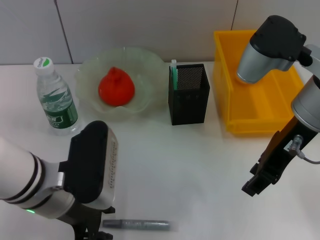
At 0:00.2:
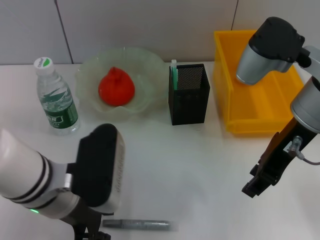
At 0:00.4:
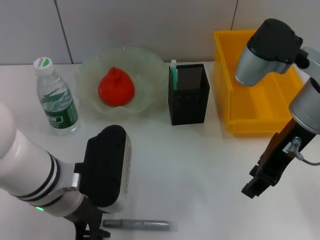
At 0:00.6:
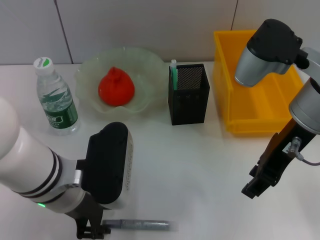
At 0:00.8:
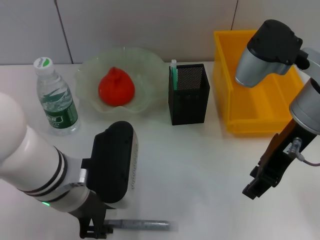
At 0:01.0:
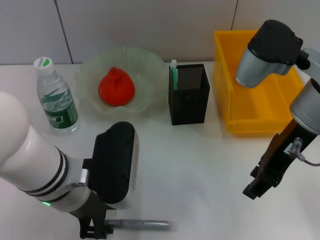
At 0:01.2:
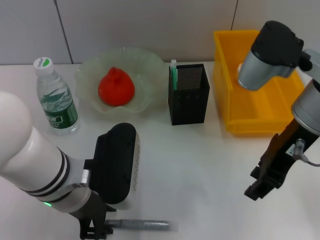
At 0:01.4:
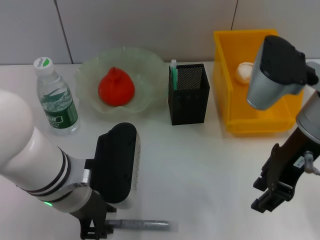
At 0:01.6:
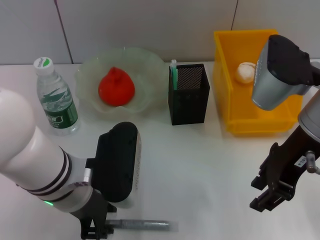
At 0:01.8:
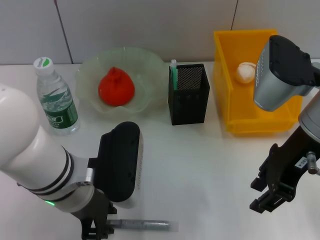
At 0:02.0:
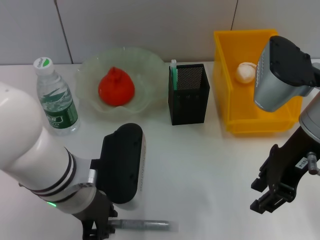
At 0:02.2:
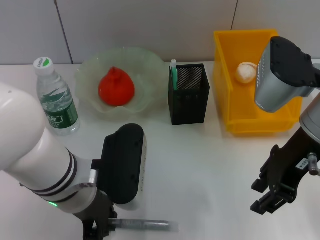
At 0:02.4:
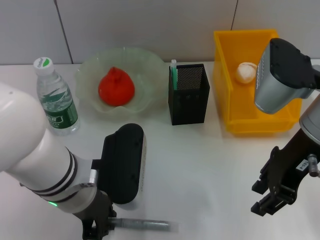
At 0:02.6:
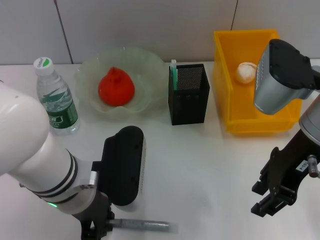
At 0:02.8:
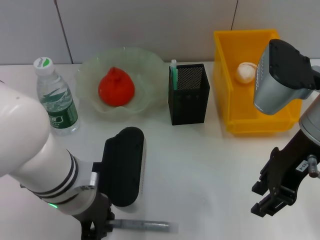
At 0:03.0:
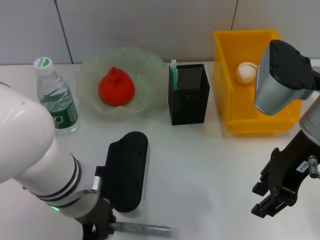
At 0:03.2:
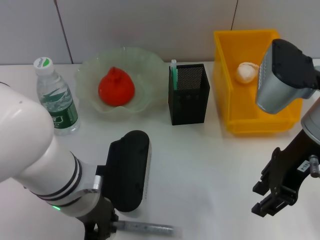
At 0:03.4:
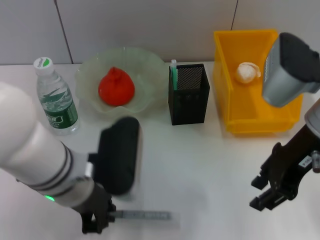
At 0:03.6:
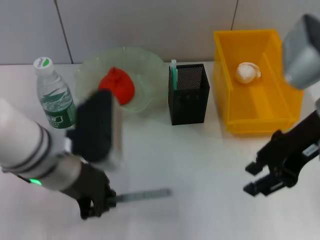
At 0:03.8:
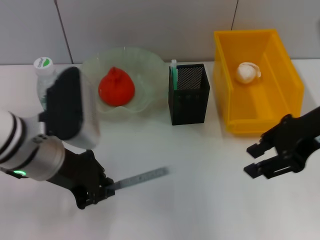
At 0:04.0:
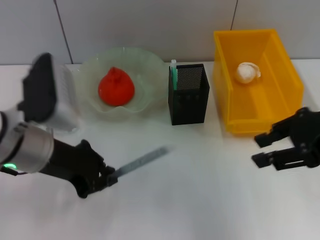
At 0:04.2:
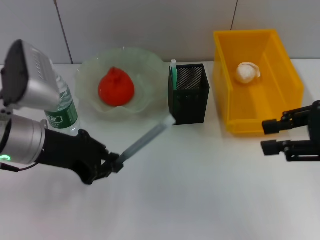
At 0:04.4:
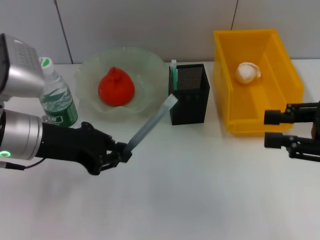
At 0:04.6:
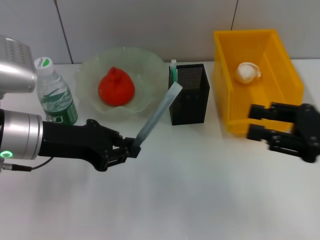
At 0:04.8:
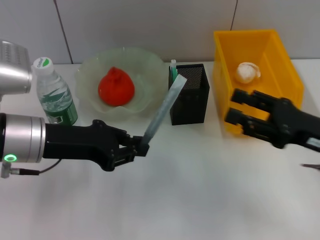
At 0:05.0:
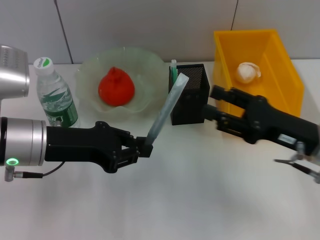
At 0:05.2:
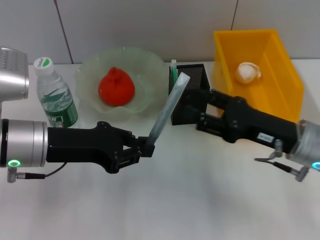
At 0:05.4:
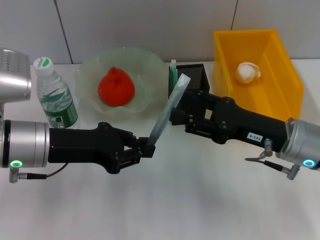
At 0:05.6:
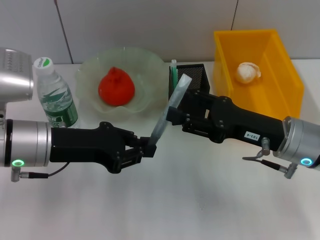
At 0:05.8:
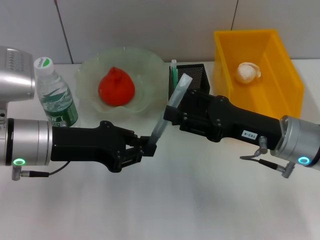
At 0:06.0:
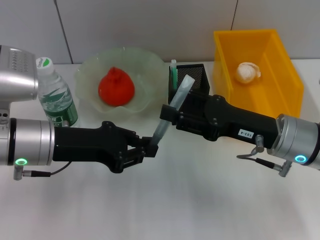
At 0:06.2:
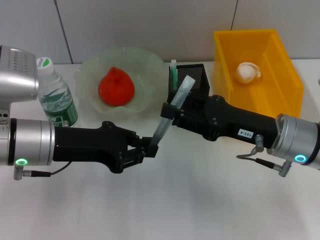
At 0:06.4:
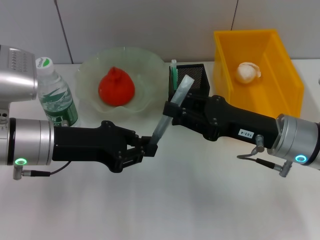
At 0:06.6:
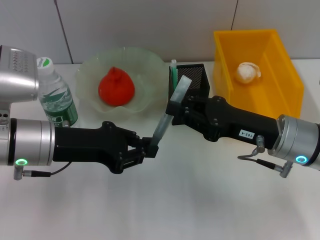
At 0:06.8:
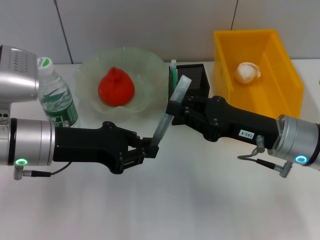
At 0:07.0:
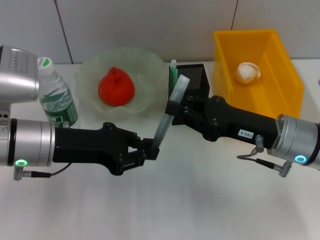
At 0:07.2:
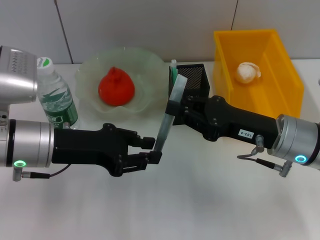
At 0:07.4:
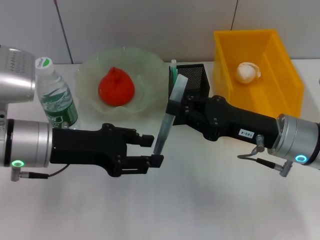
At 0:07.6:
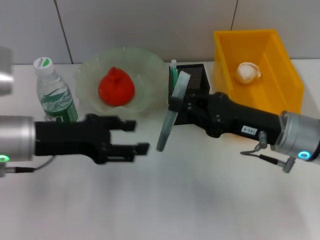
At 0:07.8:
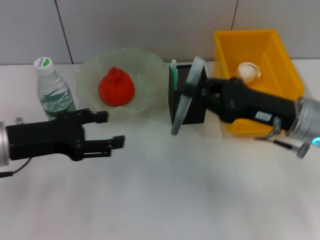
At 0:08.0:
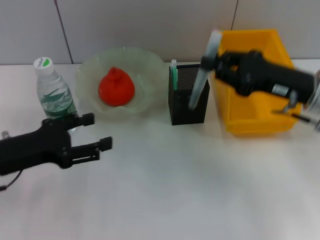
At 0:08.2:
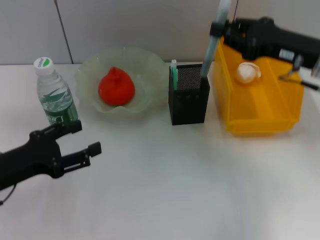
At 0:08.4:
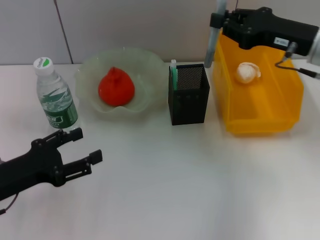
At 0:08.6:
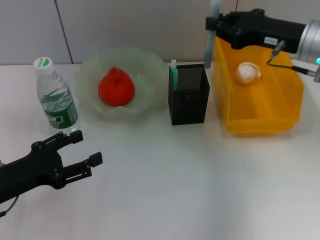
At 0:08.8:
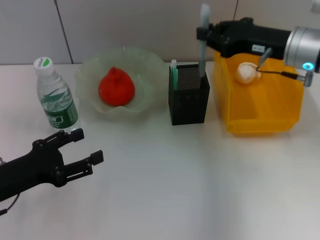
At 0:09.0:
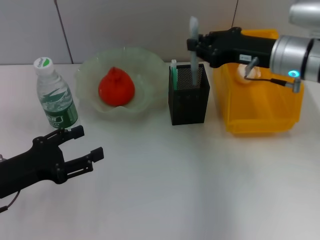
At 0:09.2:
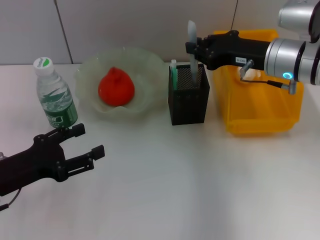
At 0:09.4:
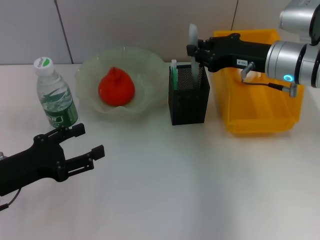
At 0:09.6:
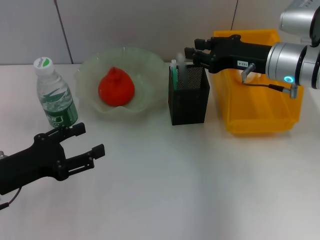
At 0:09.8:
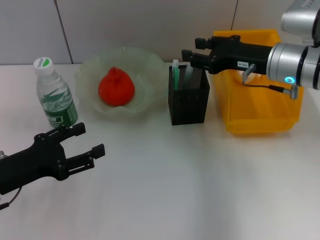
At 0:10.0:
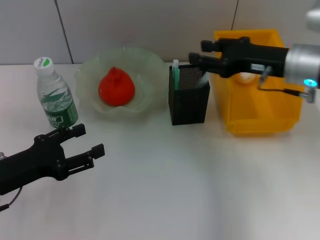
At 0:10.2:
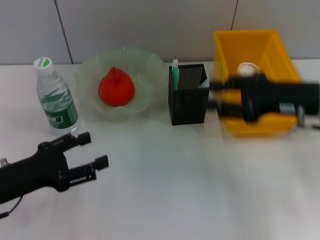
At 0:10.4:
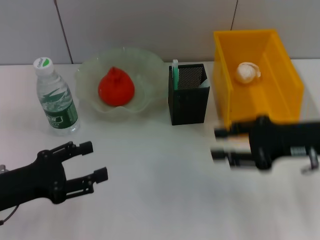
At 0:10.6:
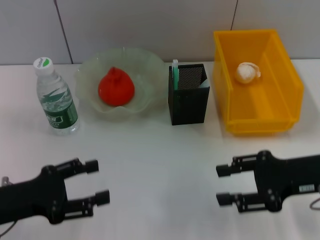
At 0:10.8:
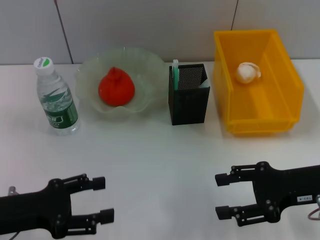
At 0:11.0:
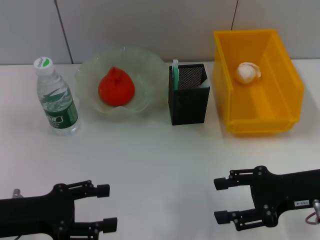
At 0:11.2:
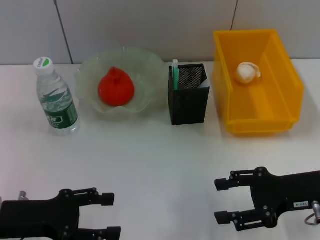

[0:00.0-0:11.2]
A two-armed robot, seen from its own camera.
Step, 0:00.0 to 0:02.8: Grab the gray glue with the left hand.
Step, 0:03.0 to 0:07.2: Pass the gray glue from the left hand to the right hand.
Step, 0:07.4 to 0:09.6: Place the gray glue into the pen holder with the right hand.
0:01.6 to 0:03.2: Both grippers stay about where they are.
0:03.2 to 0:04.8: The left gripper goes about 10 cm to the left. The right gripper goes about 15 cm downward and to the right.
0:04.8 to 0:06.4: The right gripper travels to the left by approximately 10 cm.
0:06.4 to 0:08.0: The right gripper changes place by some 5 cm, and closes up, while the left gripper moves to the left, about 5 cm, and opens.
0:08.0 to 0:09.6: The left gripper moves roughly 5 cm; the right gripper moves forward, roughly 5 cm.
0:09.6 to 0:11.2: The right gripper goes about 15 cm backward, to the right and downward, and opens.

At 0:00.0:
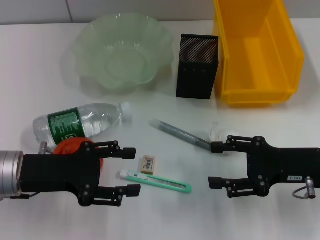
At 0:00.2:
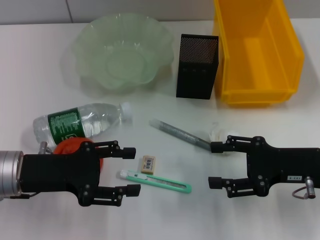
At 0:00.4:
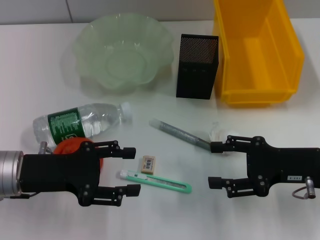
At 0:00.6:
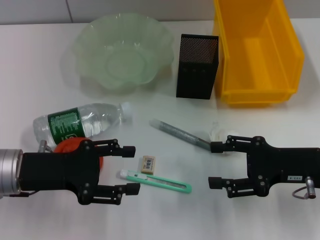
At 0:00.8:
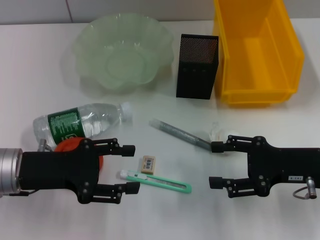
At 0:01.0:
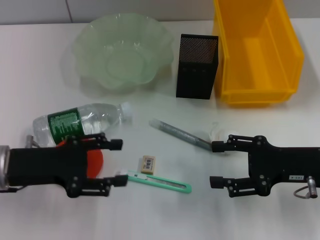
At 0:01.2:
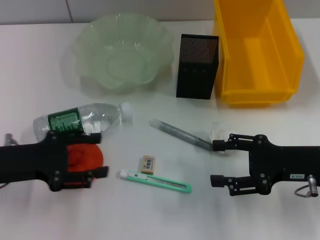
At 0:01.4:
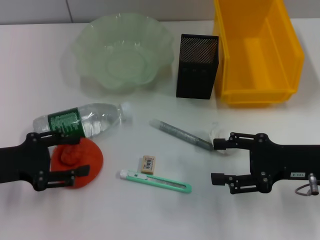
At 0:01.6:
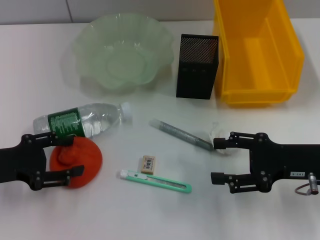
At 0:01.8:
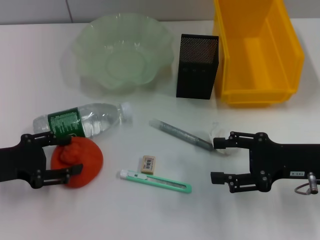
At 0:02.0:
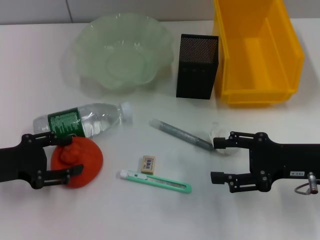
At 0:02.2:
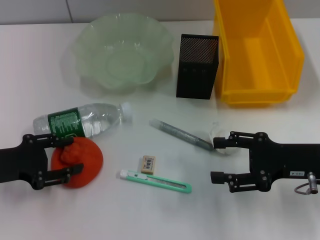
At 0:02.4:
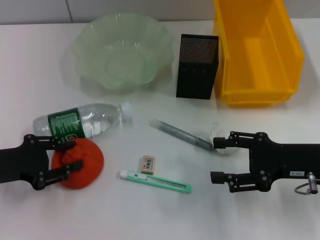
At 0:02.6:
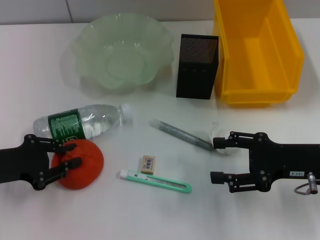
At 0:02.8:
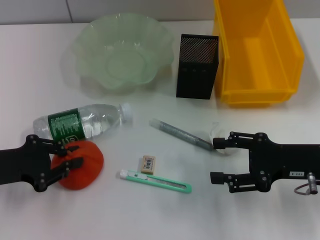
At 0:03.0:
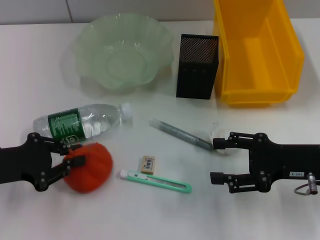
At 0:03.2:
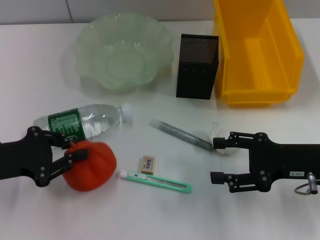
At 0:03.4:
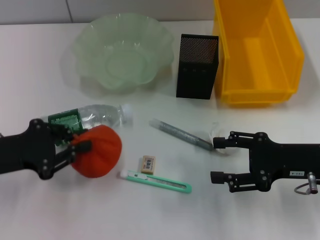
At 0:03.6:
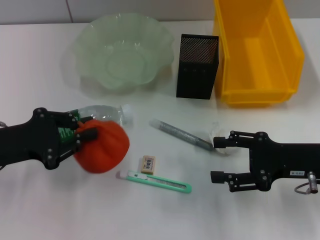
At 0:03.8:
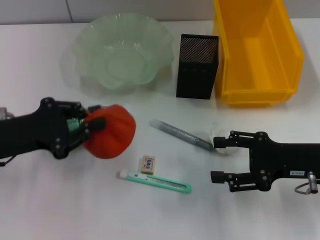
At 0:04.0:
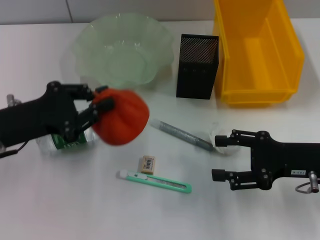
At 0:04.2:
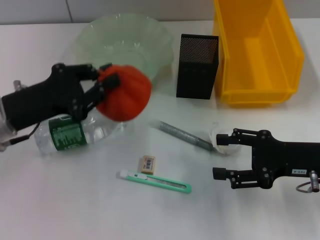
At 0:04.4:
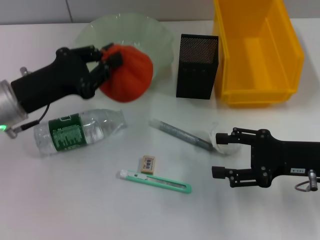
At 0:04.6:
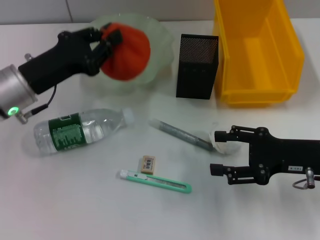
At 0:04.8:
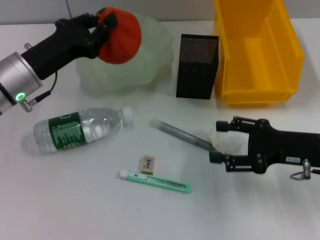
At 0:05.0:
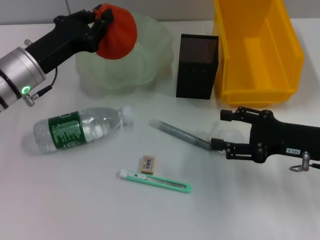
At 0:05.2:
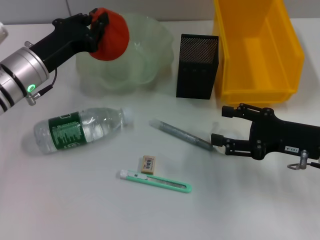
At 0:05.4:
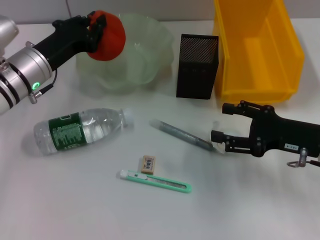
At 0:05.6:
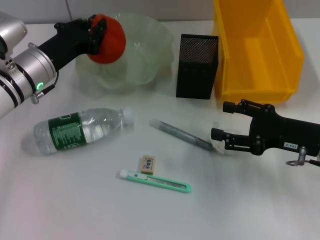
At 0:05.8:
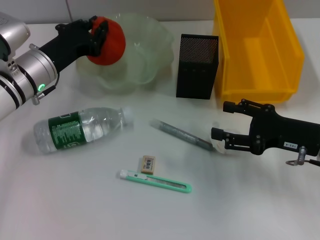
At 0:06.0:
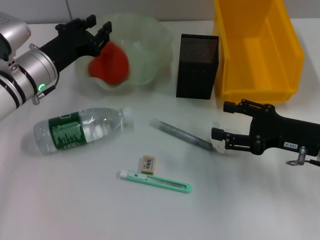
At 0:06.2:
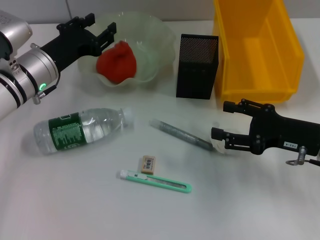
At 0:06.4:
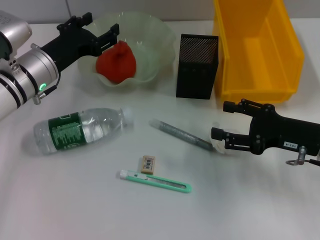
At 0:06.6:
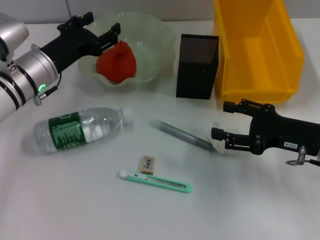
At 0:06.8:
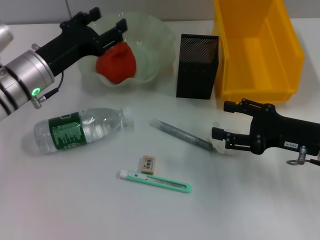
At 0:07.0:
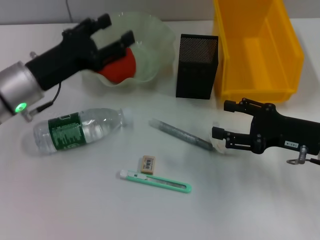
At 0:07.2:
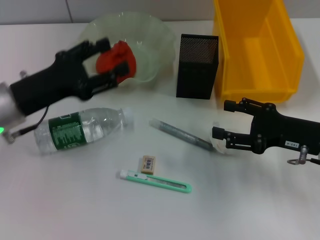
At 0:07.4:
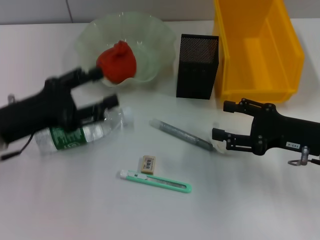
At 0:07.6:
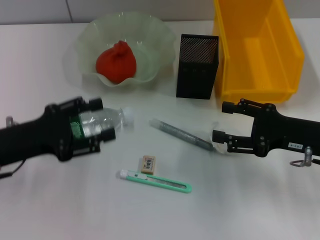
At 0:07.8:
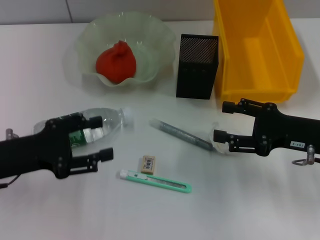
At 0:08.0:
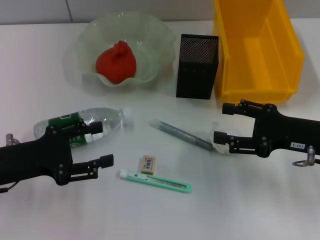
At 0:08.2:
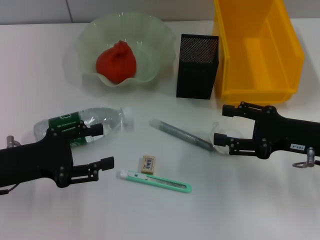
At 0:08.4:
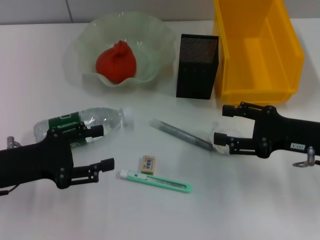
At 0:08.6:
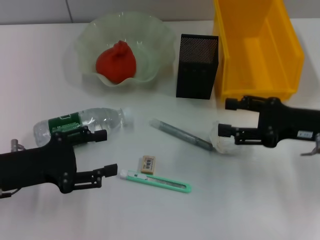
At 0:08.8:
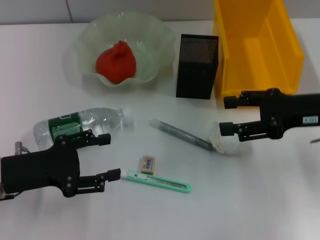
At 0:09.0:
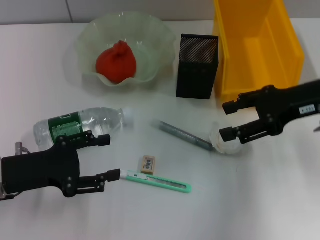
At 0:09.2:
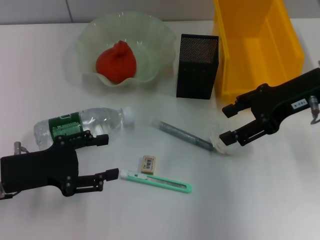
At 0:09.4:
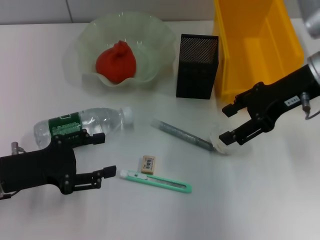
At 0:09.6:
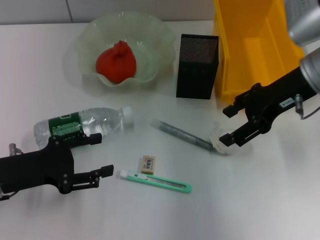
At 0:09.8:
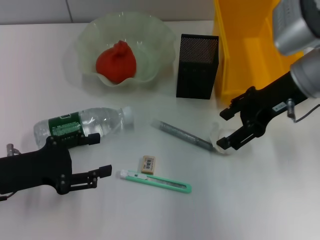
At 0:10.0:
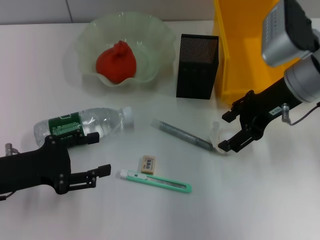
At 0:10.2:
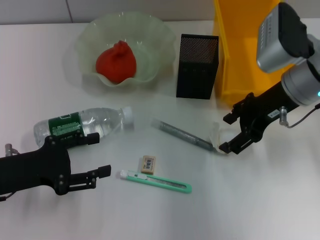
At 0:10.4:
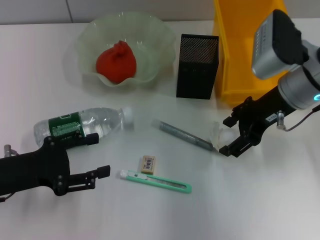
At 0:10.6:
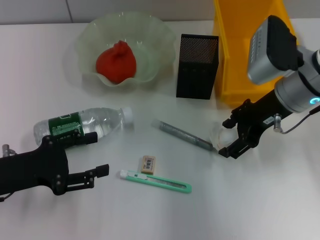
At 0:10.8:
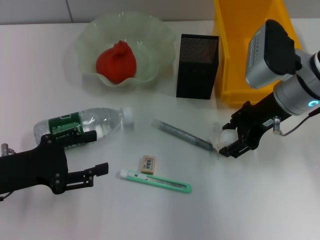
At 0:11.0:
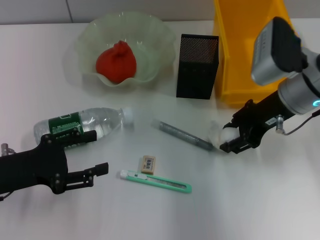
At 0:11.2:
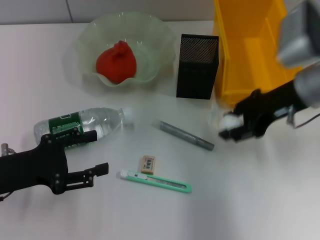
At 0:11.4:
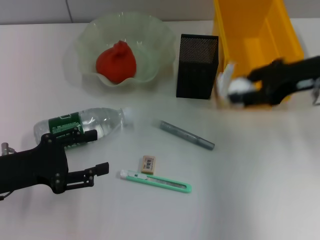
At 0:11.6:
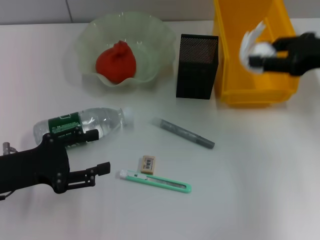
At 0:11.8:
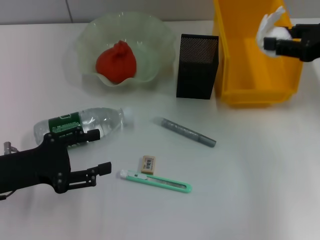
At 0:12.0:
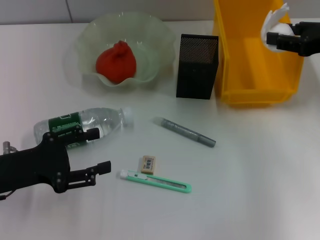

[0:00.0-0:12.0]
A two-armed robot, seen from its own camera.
Step, 0:00.0 to 0:02.6: Grab the orange with the left hand.
Step, 0:03.0 to 0:06.2: Place the orange into the fruit bowl with the left hand.
Step, 0:06.4 to 0:10.8: Grab the paper ball with the right hand.
0:00.0 to 0:01.6: The left gripper moves to the left, some 5 cm.
0:01.6 to 0:03.0: The left gripper closes.
0:03.0 to 0:04.4: The left gripper is displaced to the right and forward by some 10 cm.
0:04.4 to 0:06.0: The left gripper travels forward by roughly 5 cm.
0:06.0 to 0:07.6: The left gripper is displaced backward and to the left by roughly 15 cm, and opens up.
0:07.6 to 0:09.0: The right gripper travels upward and forward by approximately 10 cm.
0:09.0 to 0:10.4: The right gripper shifts about 5 cm to the left.
0:10.4 to 0:12.0: The right gripper heads to the right, covering approximately 10 cm, and closes up.
